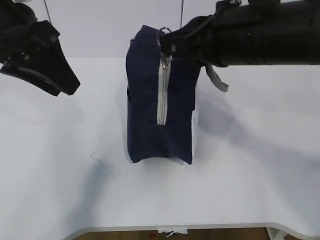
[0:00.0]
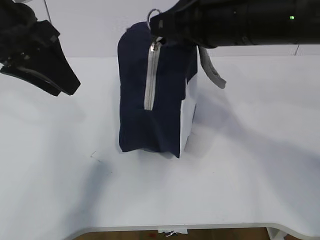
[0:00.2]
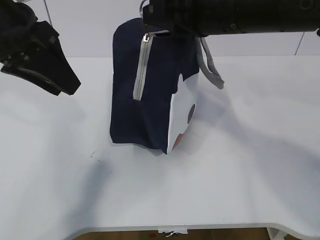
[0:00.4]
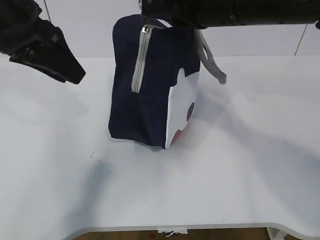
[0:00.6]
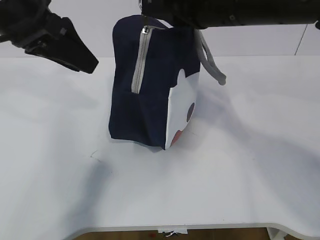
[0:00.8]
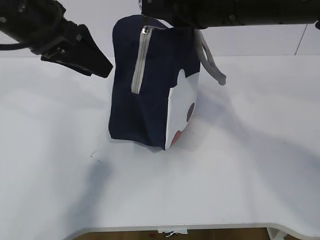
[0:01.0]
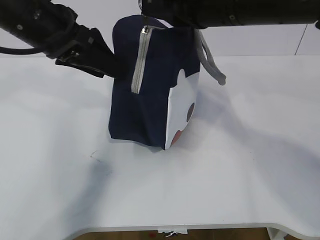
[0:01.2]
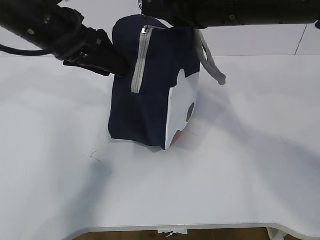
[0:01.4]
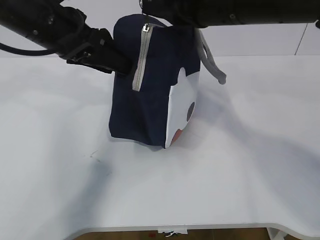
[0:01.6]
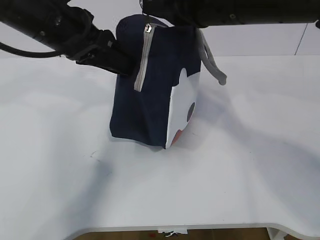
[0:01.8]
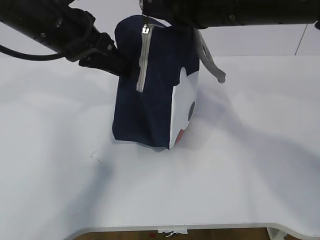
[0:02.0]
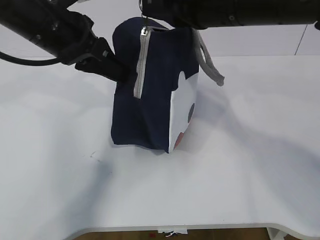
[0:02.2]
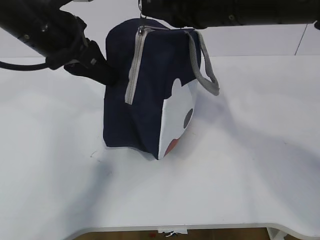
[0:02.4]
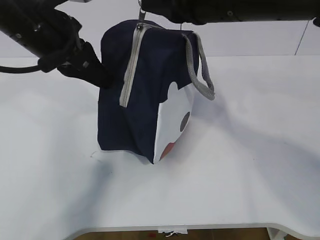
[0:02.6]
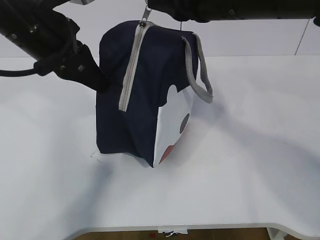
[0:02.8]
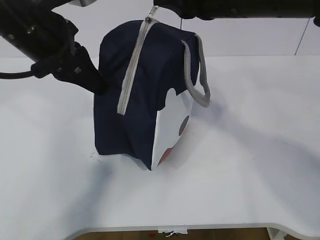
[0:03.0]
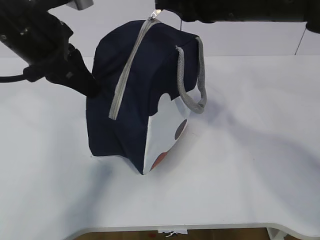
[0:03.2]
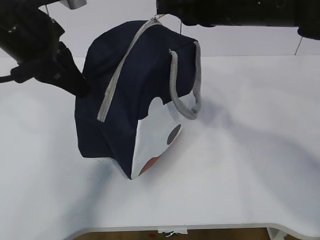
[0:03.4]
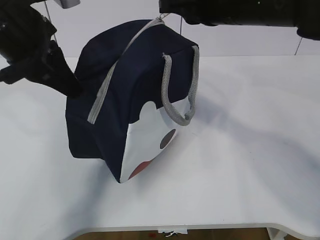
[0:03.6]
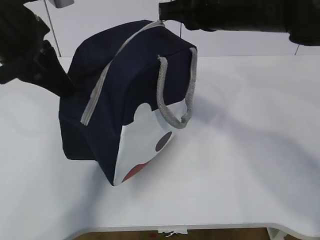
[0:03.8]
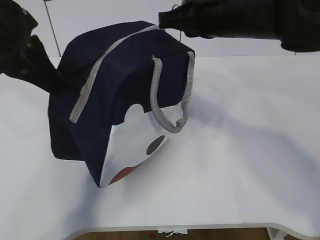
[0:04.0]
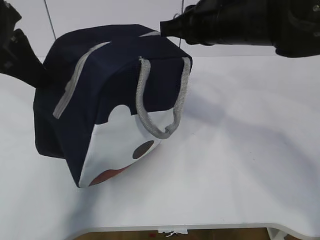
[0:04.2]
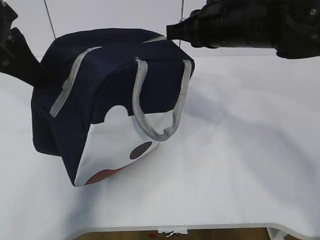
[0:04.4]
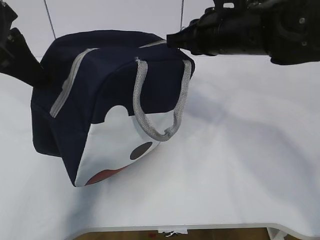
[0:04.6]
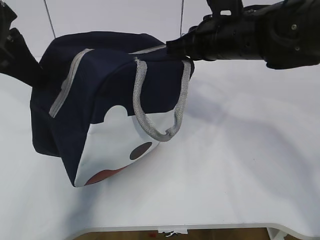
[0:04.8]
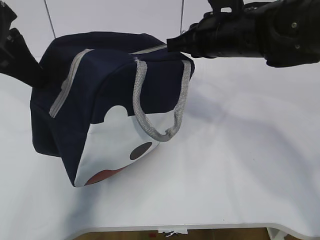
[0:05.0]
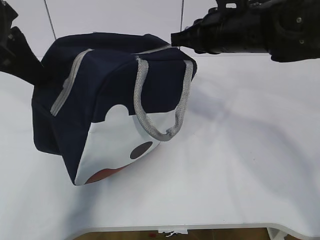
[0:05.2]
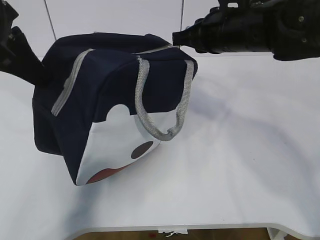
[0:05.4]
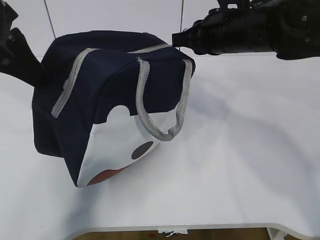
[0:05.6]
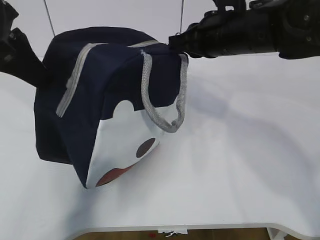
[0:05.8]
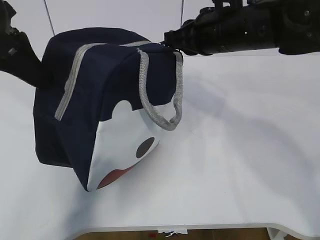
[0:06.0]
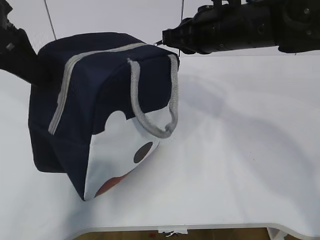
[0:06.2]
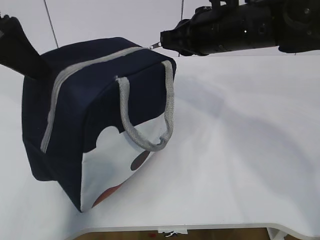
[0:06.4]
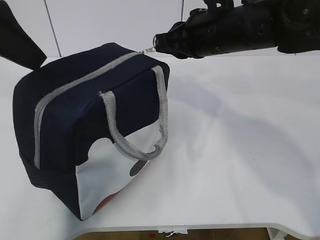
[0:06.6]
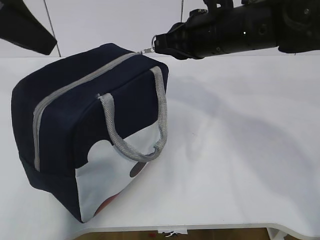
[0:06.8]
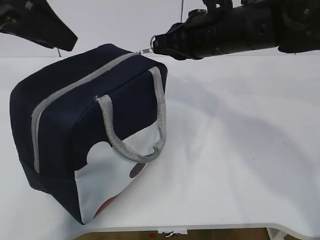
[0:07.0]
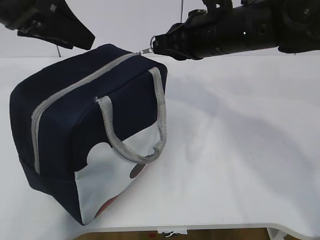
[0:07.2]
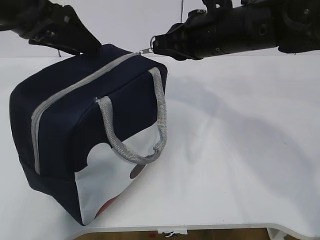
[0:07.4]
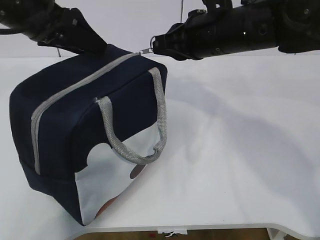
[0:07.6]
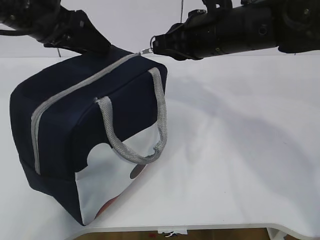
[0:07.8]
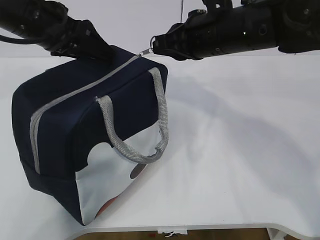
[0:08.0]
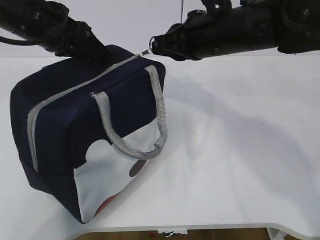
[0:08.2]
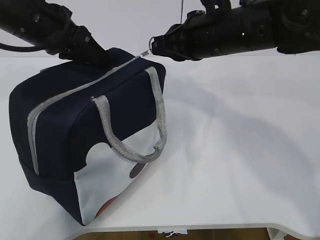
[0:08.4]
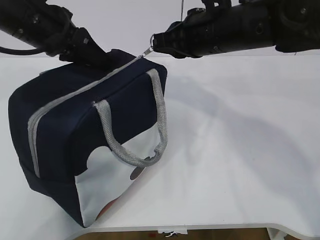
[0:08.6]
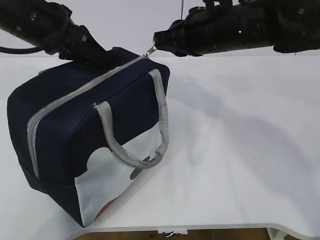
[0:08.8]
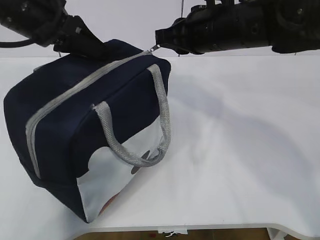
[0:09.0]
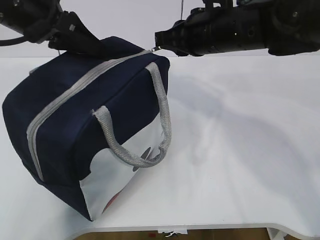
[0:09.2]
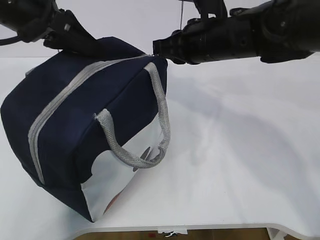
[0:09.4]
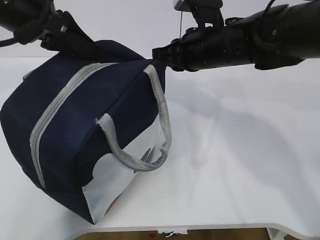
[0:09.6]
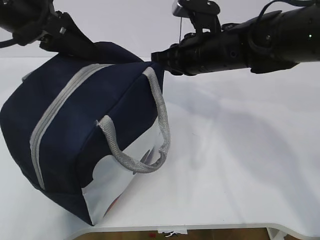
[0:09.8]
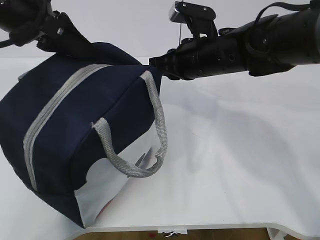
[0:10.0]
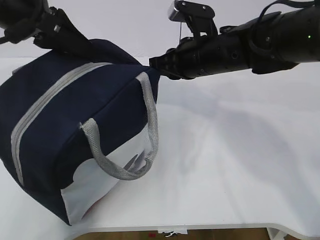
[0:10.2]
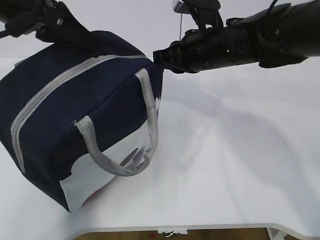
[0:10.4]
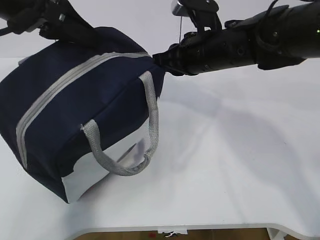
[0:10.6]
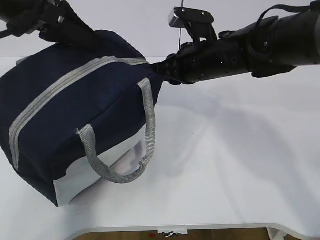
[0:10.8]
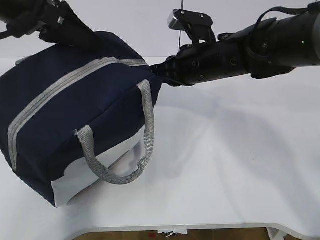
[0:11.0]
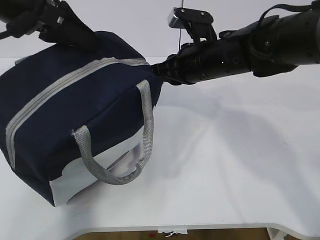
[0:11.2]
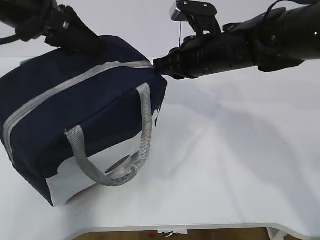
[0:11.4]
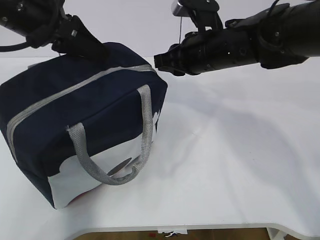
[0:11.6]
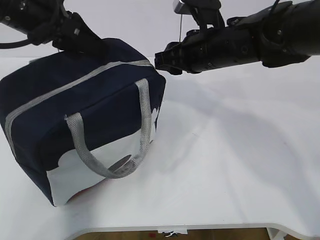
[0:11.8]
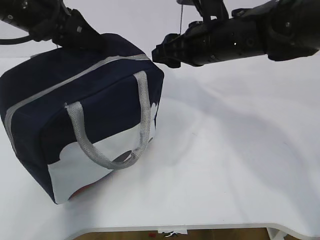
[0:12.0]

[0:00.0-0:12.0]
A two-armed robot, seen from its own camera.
0:00.0 to 0:01.6: The left gripper heads forward, covering some 5 cm.
0:01.6 to 0:03.0: The left gripper closes its fingers.
0:03.0 to 0:04.4: The right gripper goes approximately 5 cm downward, while the left gripper travels to the left by about 5 cm.
0:04.4 to 0:06.0: The grippers move only a little.
0:06.0 to 0:07.6: The left gripper travels forward by about 5 cm, and opens up.
0:07.6 to 0:09.0: The left gripper closes its fingers.
0:10.4 to 0:12.0: The right gripper opens its fingers.

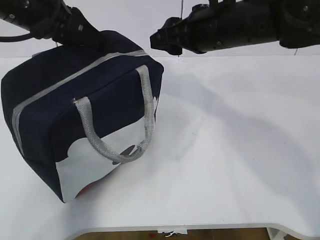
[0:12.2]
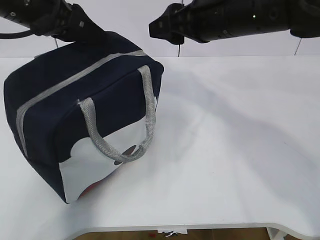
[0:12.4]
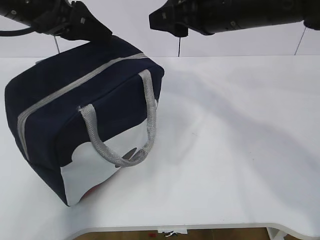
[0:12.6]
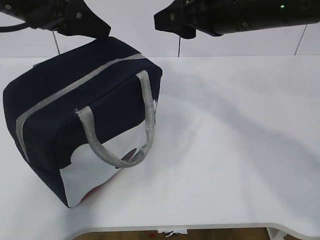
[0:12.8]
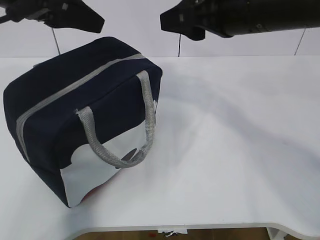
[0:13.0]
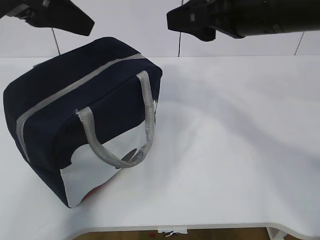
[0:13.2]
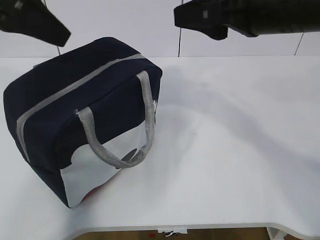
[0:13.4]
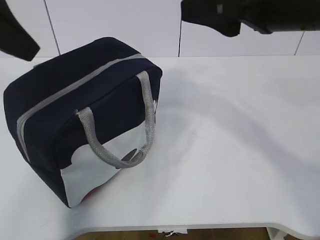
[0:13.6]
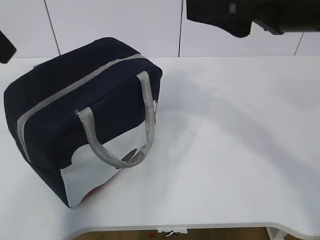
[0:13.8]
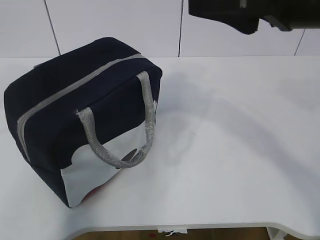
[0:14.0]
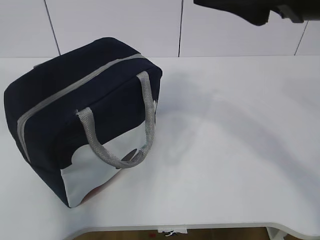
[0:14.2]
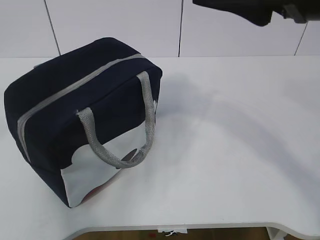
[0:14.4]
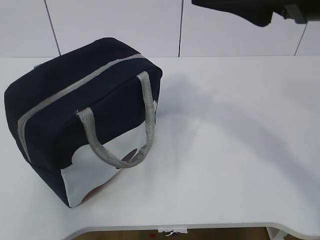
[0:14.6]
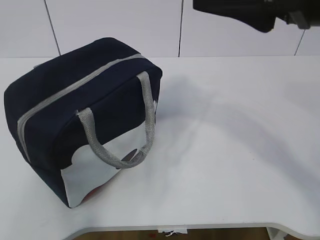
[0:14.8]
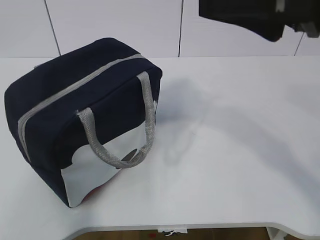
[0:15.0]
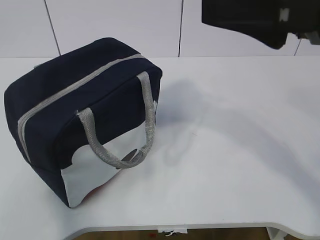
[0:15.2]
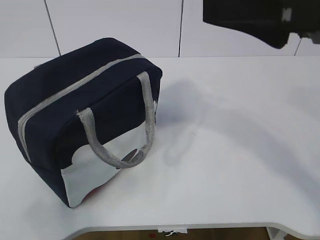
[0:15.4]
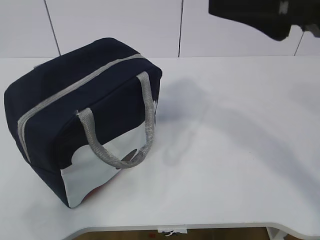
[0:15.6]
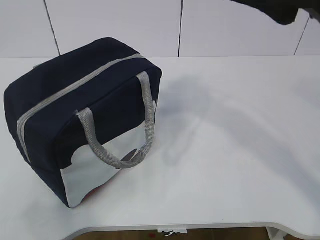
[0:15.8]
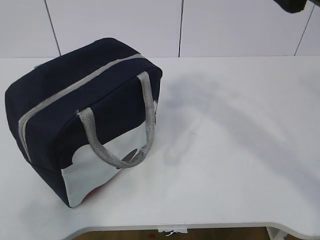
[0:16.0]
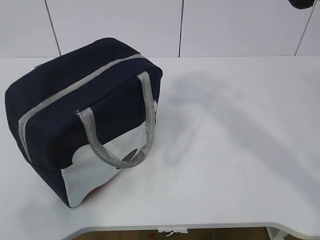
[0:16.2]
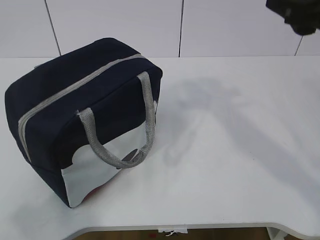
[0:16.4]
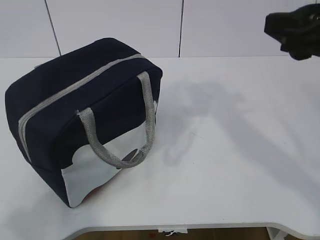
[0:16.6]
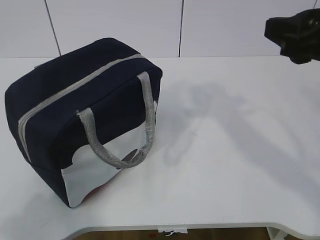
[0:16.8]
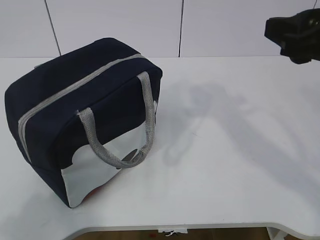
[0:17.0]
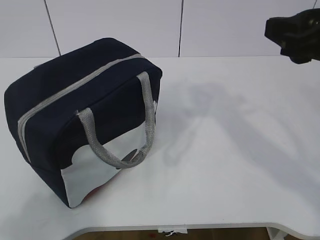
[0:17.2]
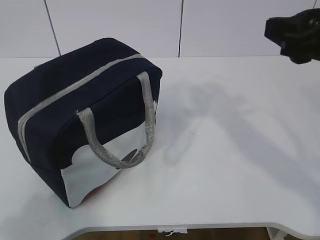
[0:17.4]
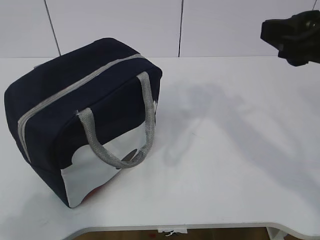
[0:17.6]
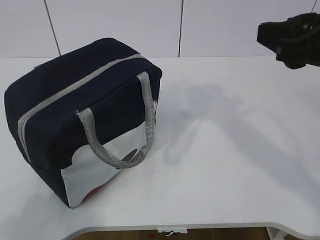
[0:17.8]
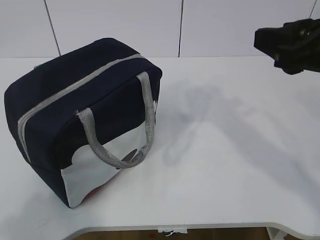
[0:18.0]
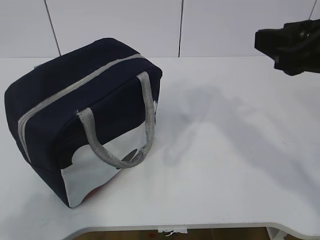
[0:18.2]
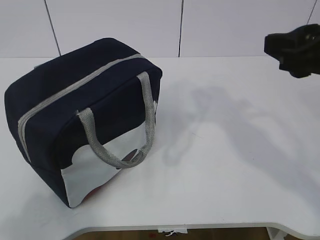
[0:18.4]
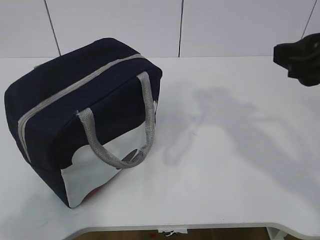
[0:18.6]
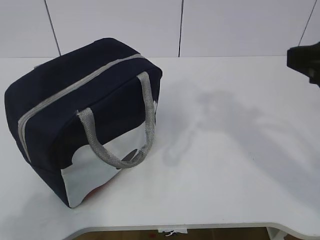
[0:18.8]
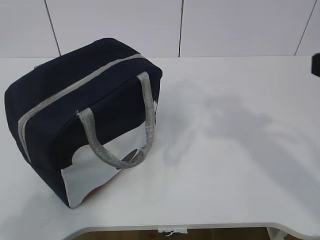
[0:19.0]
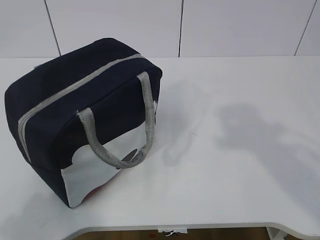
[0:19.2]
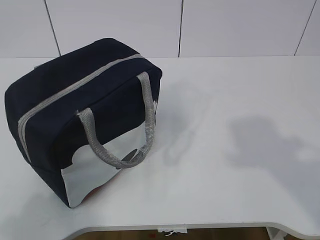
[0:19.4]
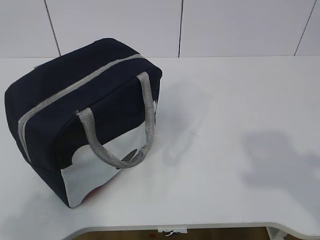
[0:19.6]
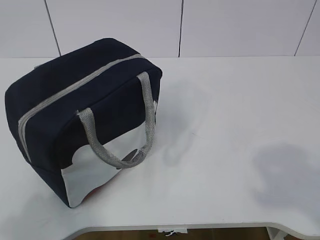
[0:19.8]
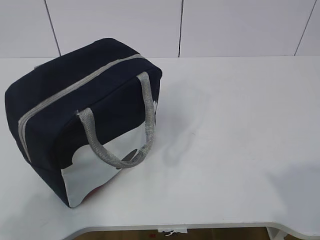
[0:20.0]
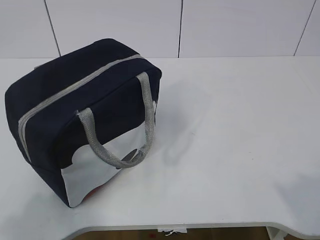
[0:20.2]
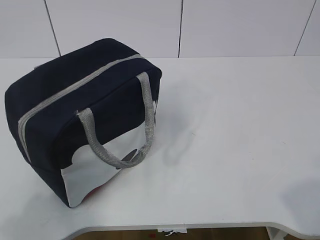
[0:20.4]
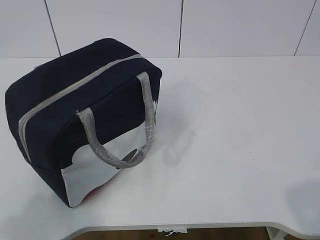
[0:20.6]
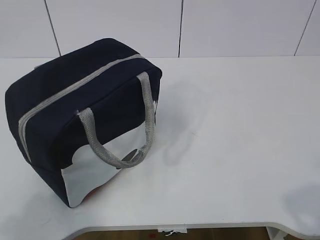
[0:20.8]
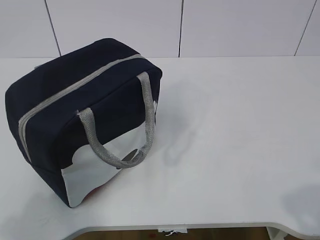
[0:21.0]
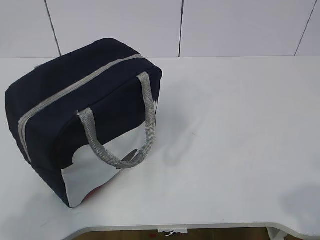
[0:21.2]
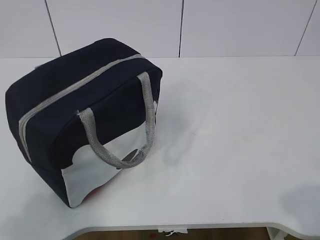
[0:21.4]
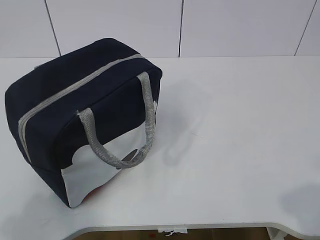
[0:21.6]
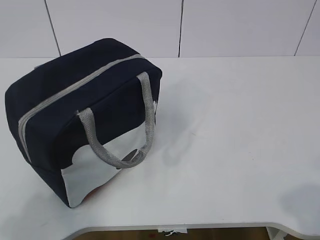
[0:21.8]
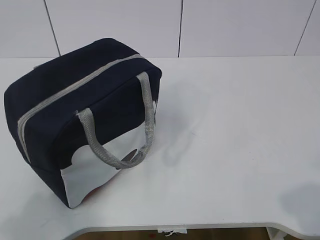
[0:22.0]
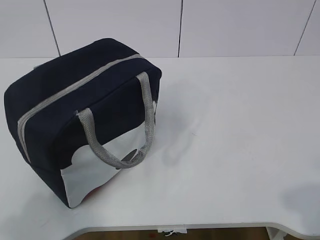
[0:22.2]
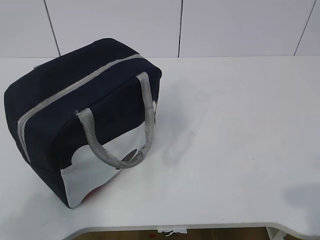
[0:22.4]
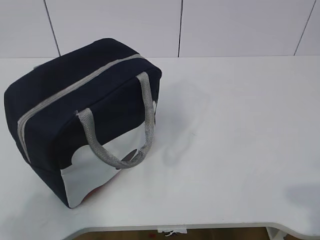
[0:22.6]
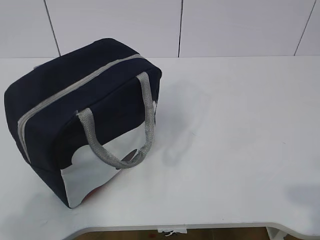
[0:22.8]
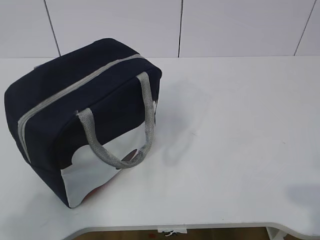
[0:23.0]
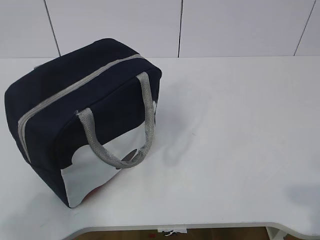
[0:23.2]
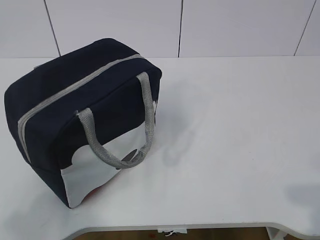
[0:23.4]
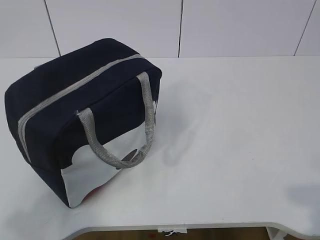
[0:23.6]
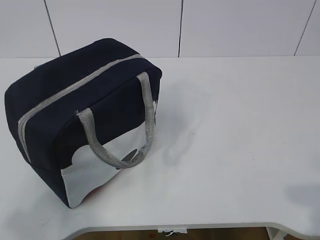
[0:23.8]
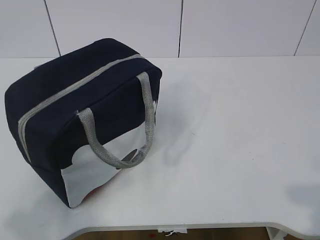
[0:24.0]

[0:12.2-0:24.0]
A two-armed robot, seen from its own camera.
0:12.2 to 0:13.6: Both grippers move backward and upward, approximately 15 cm. The left gripper opens up.
0:13.6 to 0:15.2: The left gripper is displaced backward by roughly 25 cm, while the right gripper heads backward, covering approximately 5 cm.
0:15.2 to 0:16.6: The right gripper moves roughly 5 cm.
0:16.6 to 0:18.2: The grippers move only a little.
0:18.2 to 0:19.6: The right gripper moves backward, about 20 cm.
0:21.0 to 0:22.6: There are only small adjustments of the grippers.
